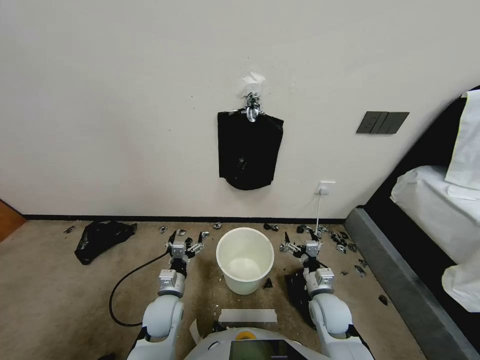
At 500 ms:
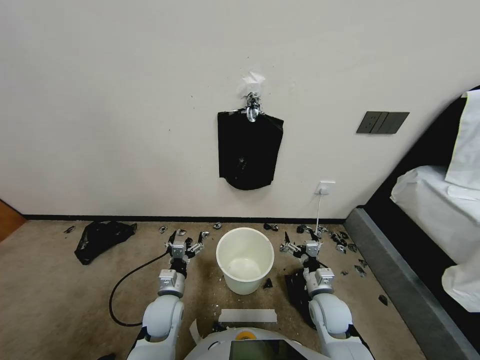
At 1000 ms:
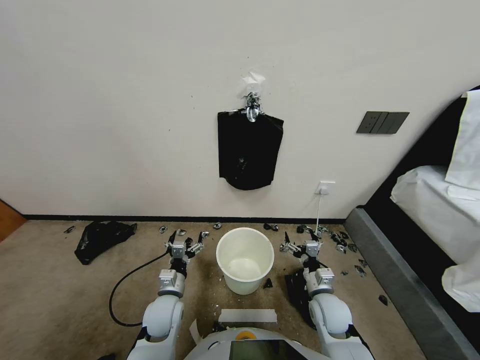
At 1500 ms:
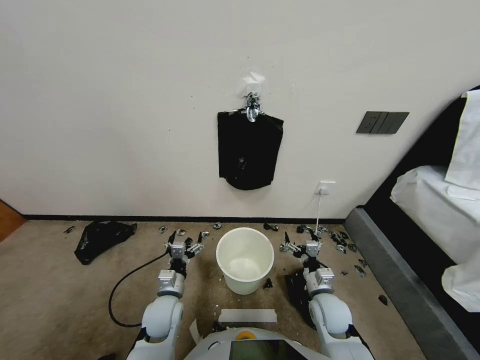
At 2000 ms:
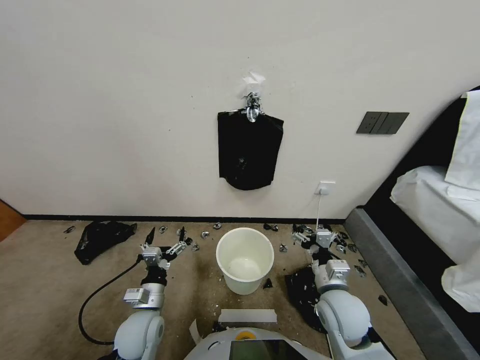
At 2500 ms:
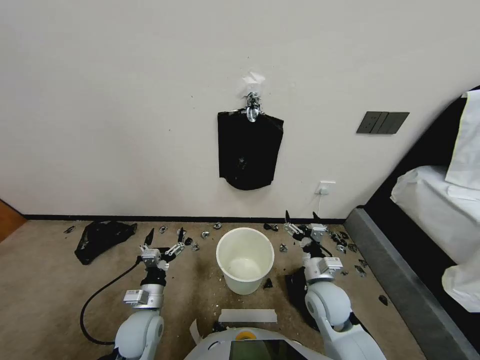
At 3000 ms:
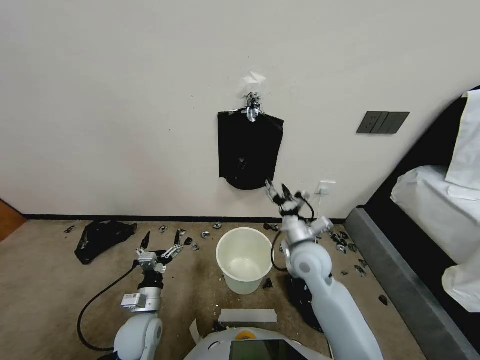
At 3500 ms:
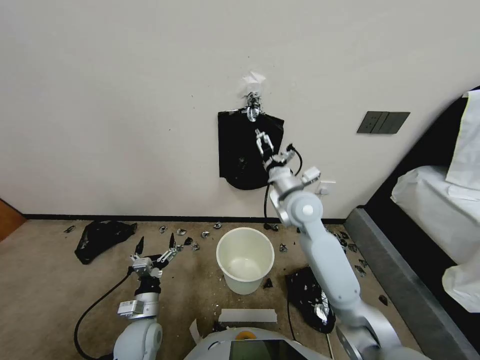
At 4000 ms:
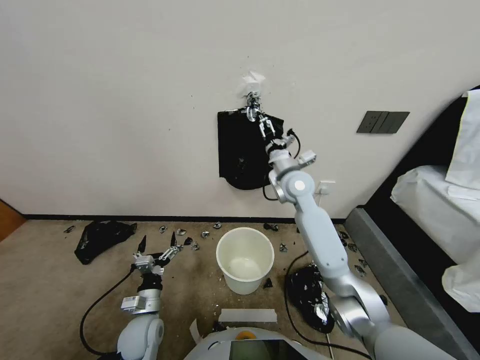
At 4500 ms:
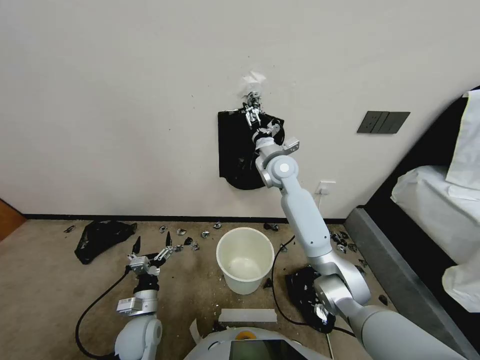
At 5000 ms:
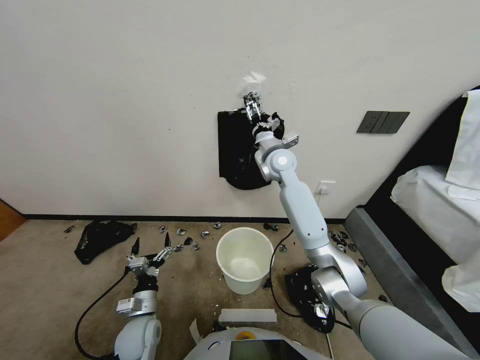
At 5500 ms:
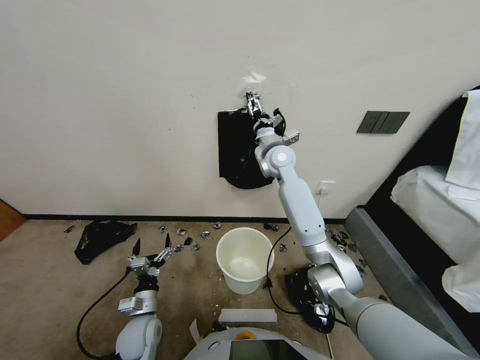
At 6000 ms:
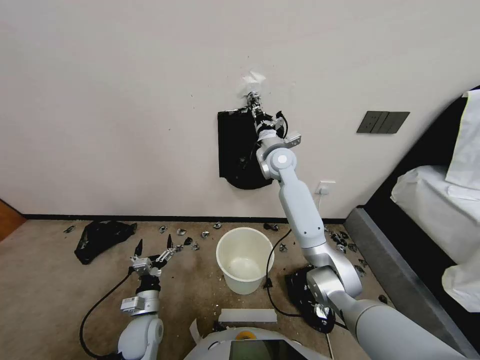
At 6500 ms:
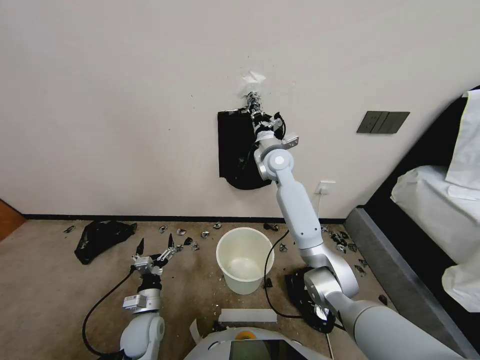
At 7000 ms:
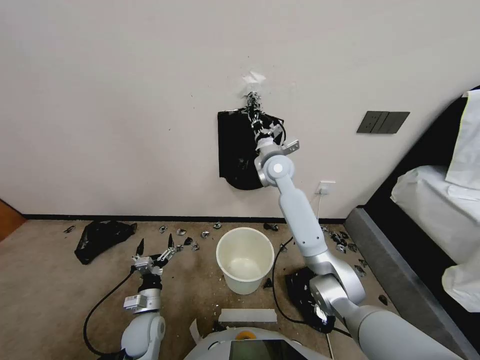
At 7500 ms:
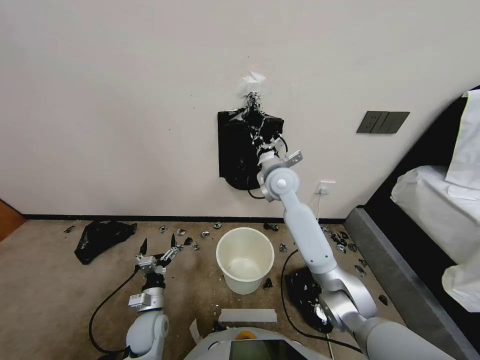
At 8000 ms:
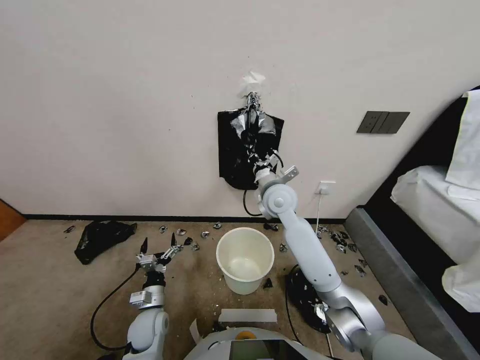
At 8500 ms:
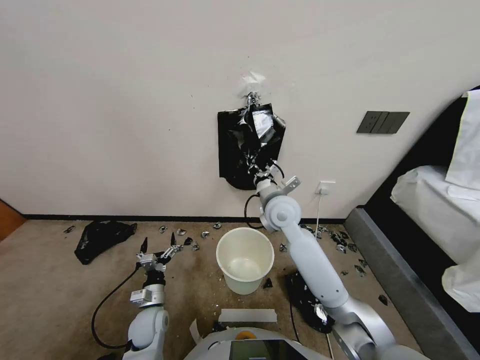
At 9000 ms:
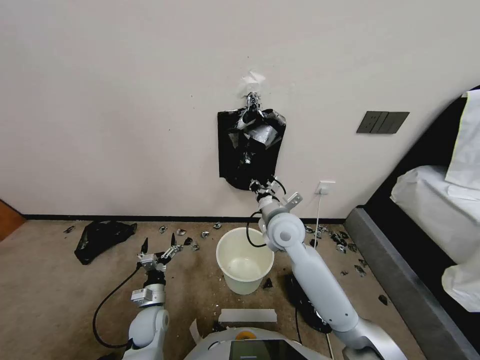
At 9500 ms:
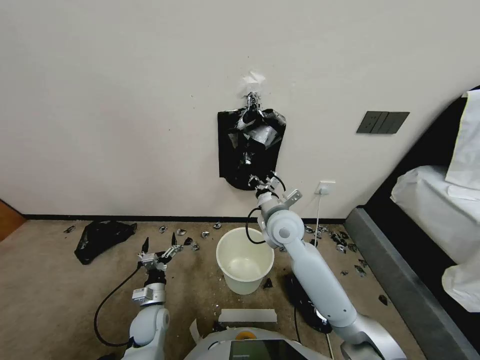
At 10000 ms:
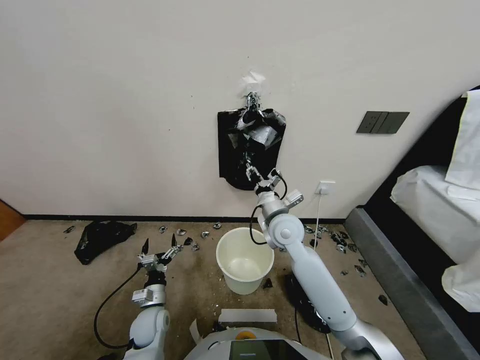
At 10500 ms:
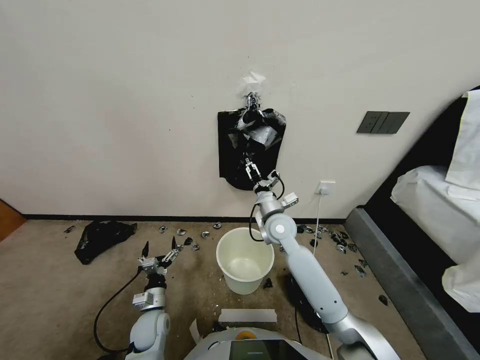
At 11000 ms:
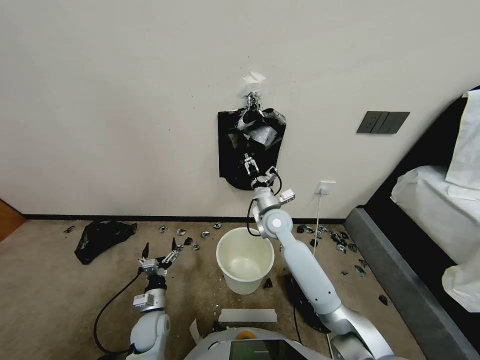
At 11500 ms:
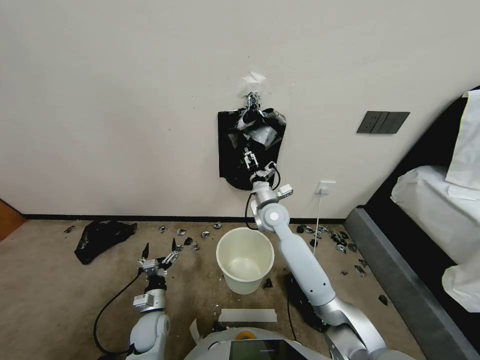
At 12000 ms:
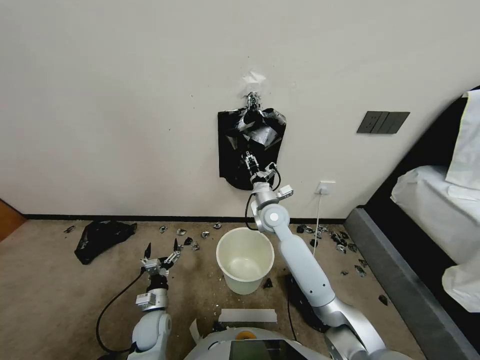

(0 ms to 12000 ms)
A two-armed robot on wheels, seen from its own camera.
Task of the whole recording: Place a trash bag onto the trash bin.
2000 ms - 4000 ms: The right gripper travels forward and upward by about 35 cm.
4000 ms - 6000 ms: The right gripper changes place by roughly 5 cm, and closes its fingers.
6000 ms - 8000 ms: The right gripper is displaced backward and downward by some 15 cm.
8000 ms - 10000 ms: The right gripper heads downward, covering about 5 cm, and opens its fingers.
10000 ms - 12000 ms: The right gripper ends up about 5 cm from where it was, and opens and closes again.

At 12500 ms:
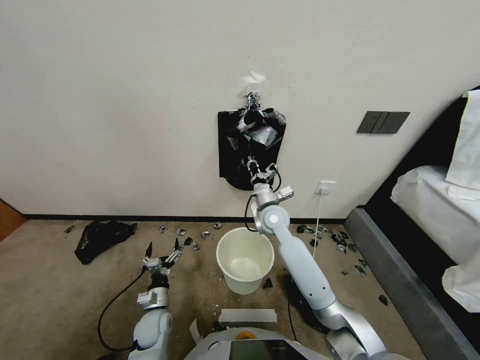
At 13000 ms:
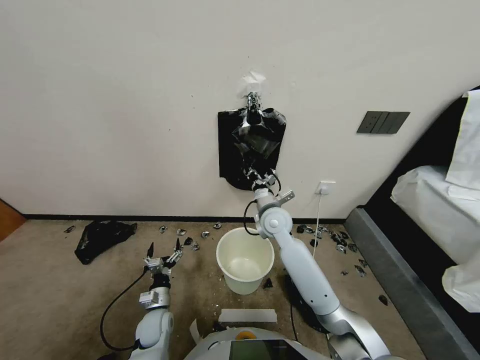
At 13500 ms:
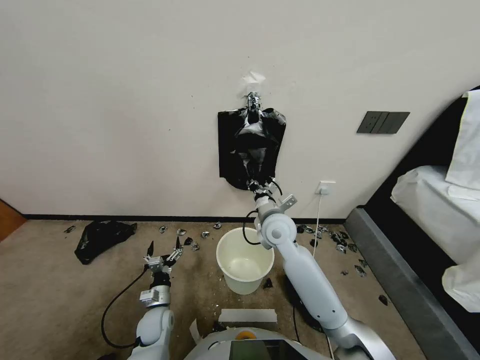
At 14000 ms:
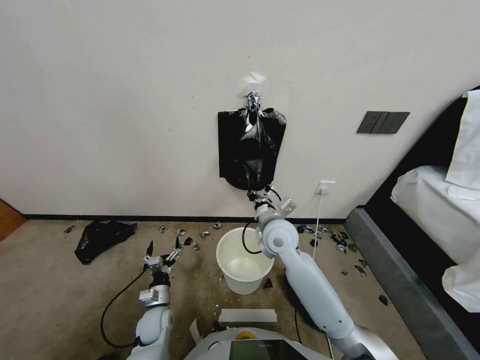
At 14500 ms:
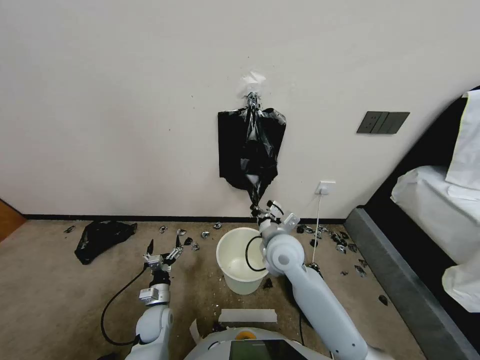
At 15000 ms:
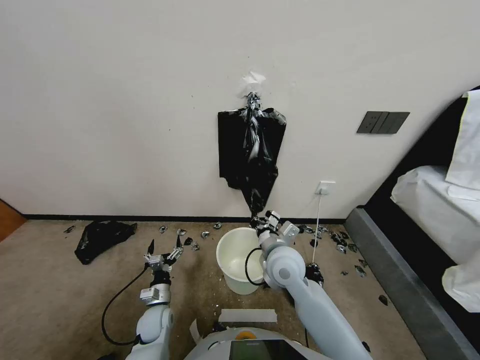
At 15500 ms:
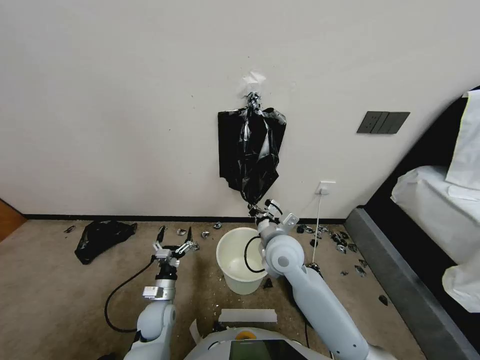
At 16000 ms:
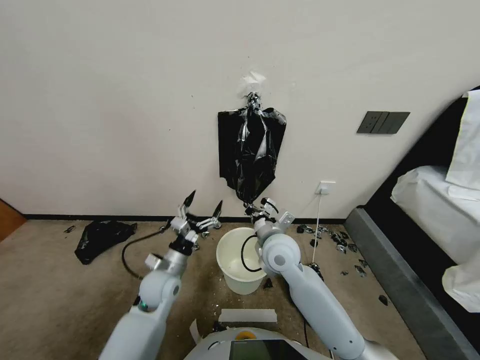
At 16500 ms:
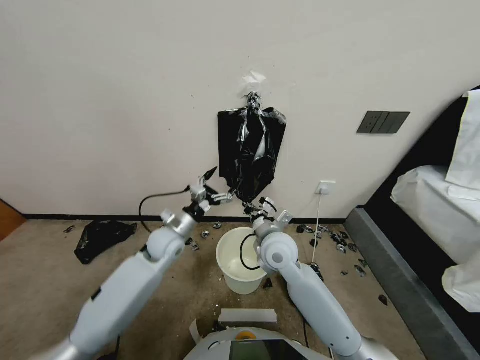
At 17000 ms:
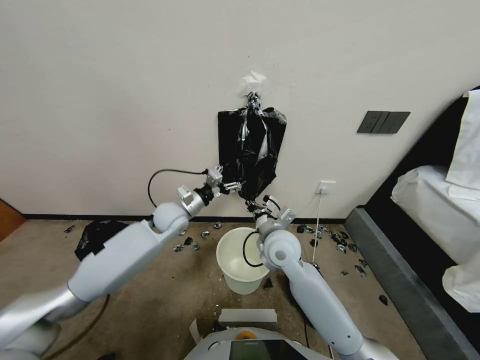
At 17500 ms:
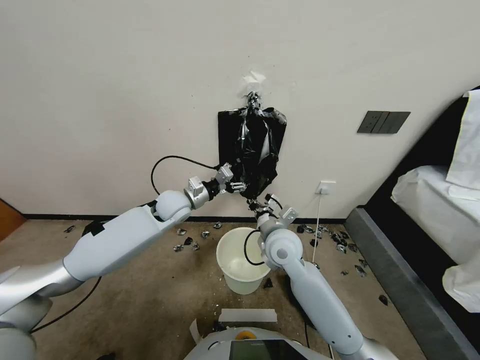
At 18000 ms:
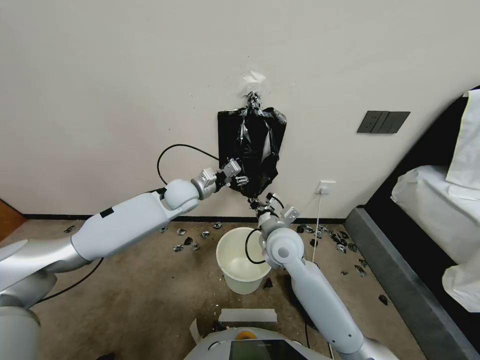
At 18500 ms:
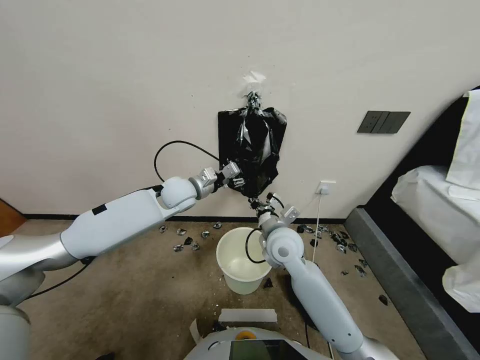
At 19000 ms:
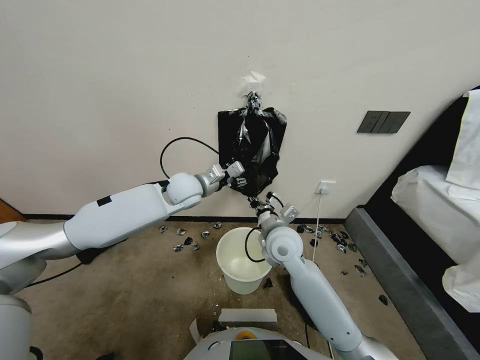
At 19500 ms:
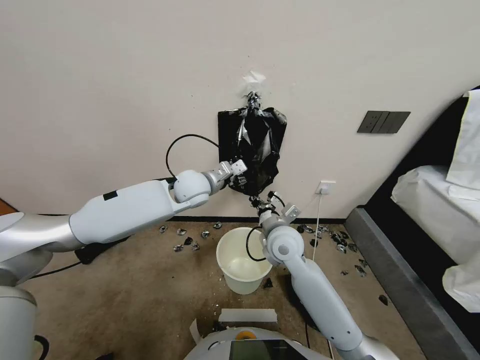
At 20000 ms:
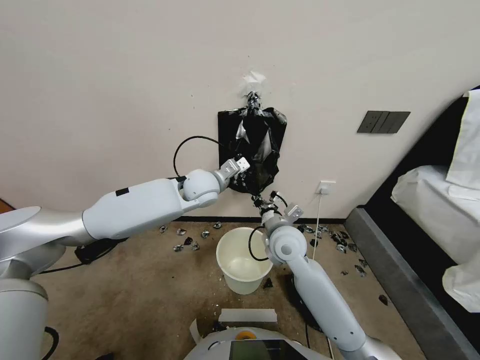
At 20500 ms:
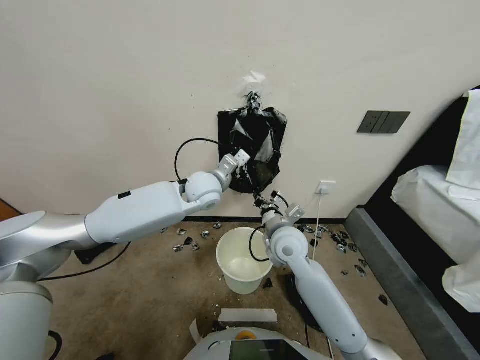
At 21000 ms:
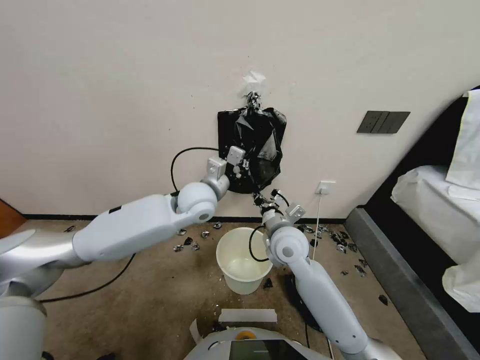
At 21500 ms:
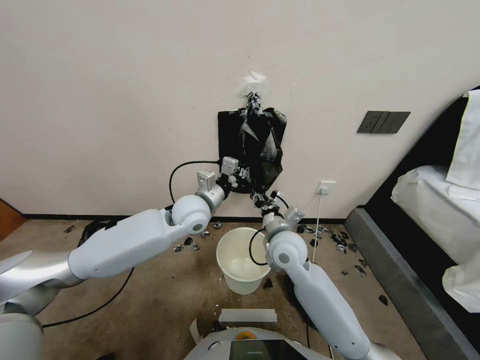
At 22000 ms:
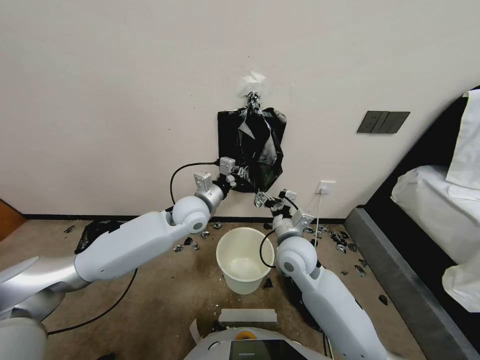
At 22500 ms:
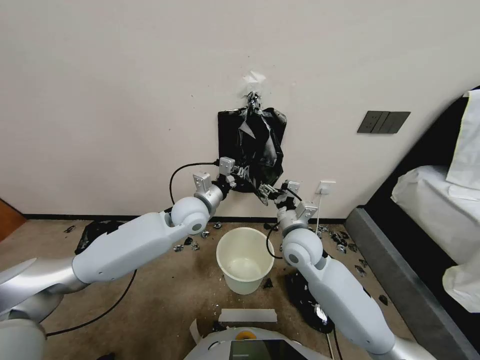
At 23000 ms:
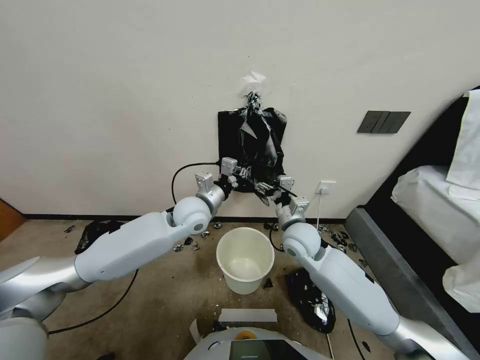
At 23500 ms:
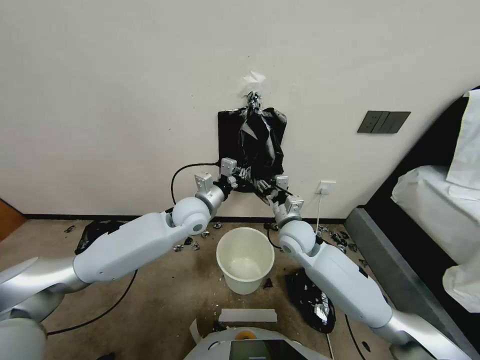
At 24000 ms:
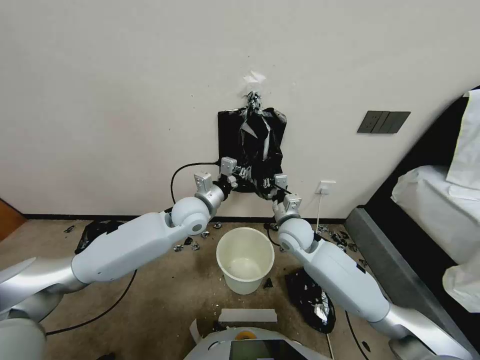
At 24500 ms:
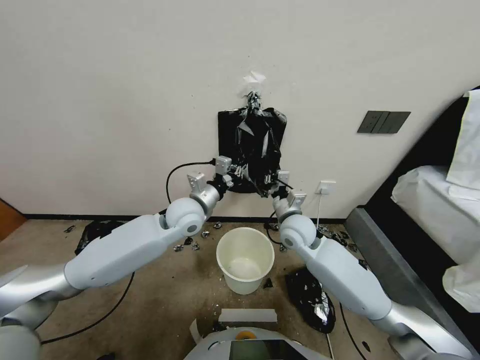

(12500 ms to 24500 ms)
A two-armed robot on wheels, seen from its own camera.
Task of the whole recording: Place a trash bag onto the trash bin.
12500 ms - 14500 ms: The right gripper heads backward, covering some 10 cm.
14500 ms - 16500 ms: The left gripper moves upward and forward, about 30 cm.
16500 ms - 18500 ms: The left gripper travels upward and forward by some 10 cm, and closes.
18500 ms - 20500 ms: The left gripper moves to the right, some 10 cm, and closes.
20500 ms - 22500 ms: The right gripper opens up; the left gripper moves approximately 5 cm.
22500 ms - 24500 ms: The right gripper shifts by approximately 5 cm, and closes its fingers.

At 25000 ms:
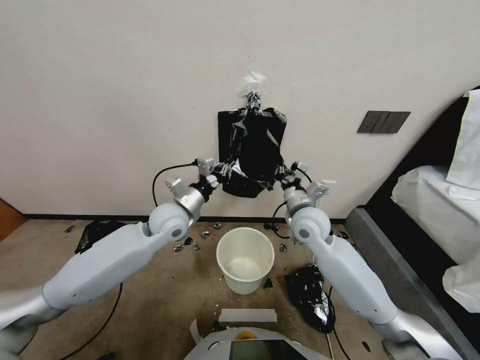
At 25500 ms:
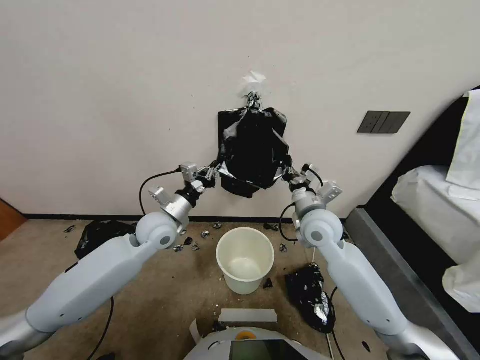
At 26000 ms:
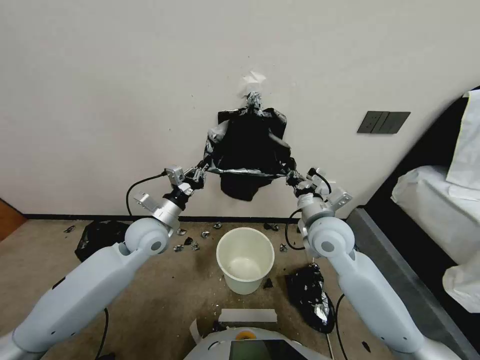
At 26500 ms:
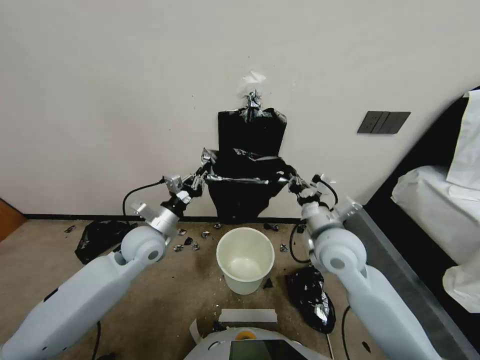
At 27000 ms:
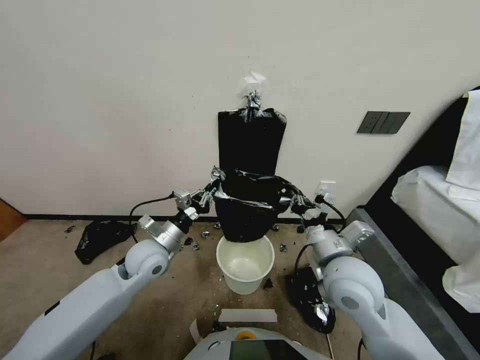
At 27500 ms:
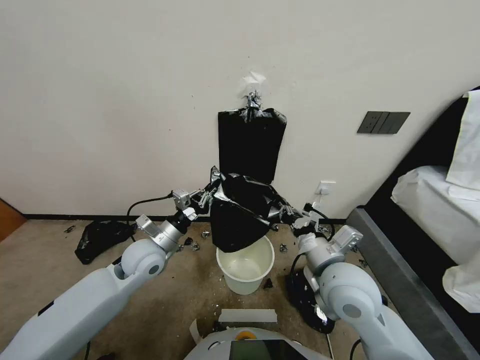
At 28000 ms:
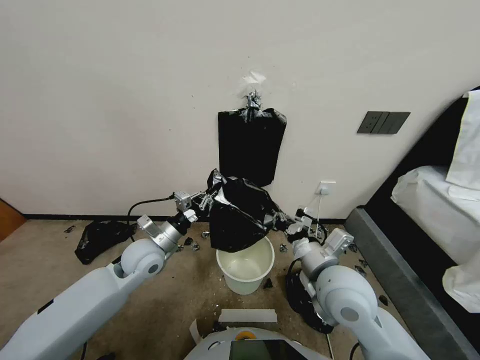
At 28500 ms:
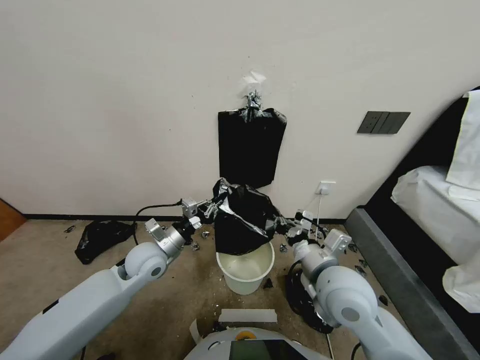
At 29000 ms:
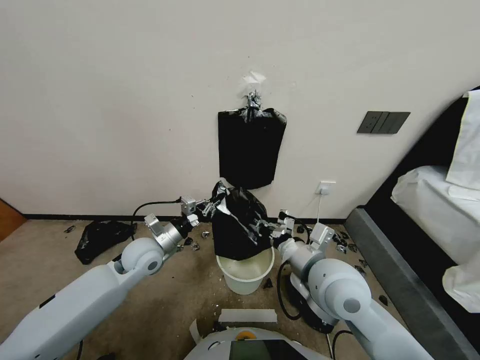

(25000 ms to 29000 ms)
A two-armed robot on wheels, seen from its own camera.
Task of the whole recording: Place a trash bag onto the trash bin.
25000 ms - 27000 ms: The left gripper moves backward and downward, some 10 cm. Meanwhile the right gripper travels backward by some 15 cm.
